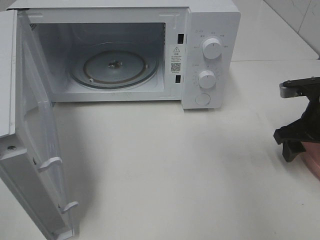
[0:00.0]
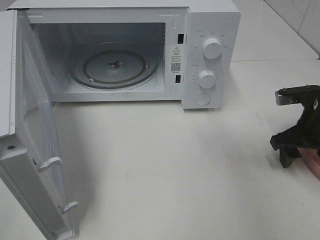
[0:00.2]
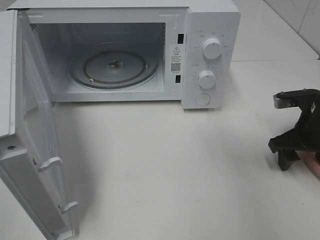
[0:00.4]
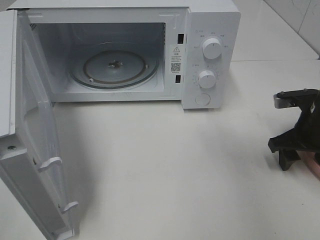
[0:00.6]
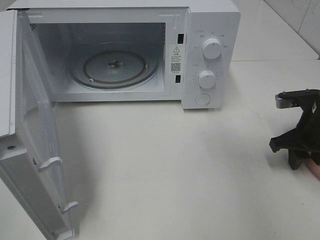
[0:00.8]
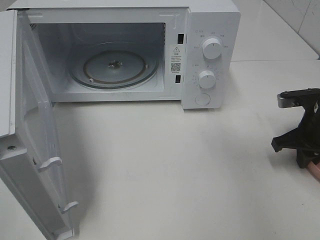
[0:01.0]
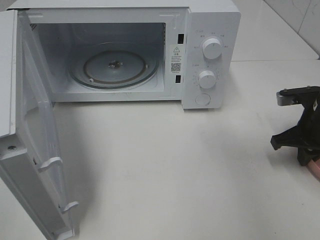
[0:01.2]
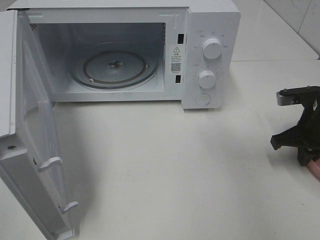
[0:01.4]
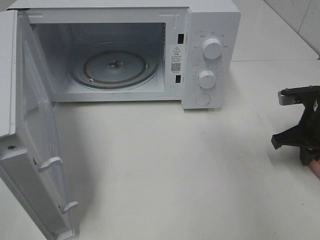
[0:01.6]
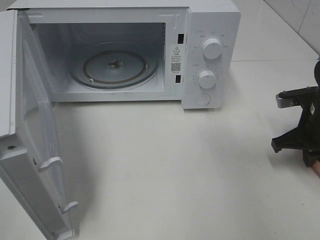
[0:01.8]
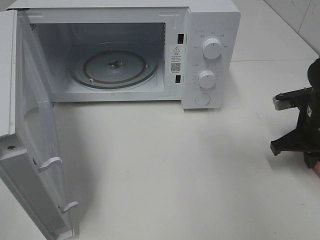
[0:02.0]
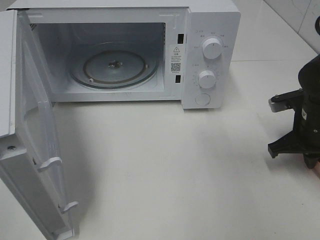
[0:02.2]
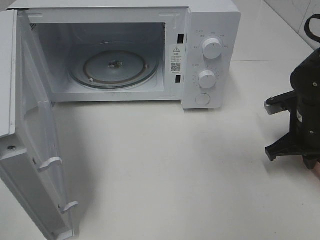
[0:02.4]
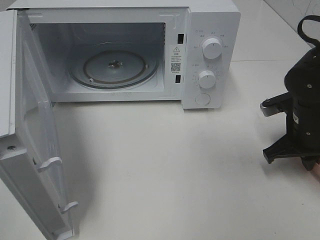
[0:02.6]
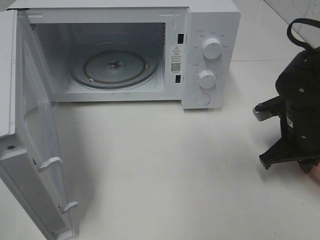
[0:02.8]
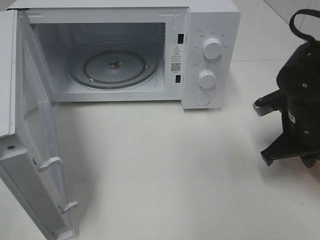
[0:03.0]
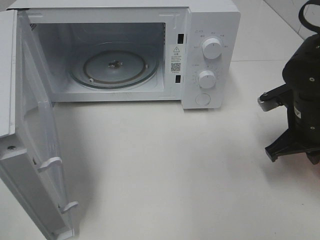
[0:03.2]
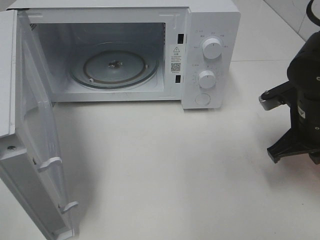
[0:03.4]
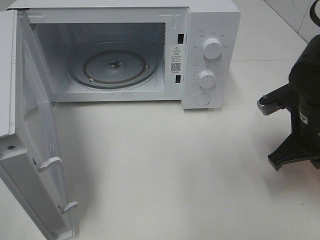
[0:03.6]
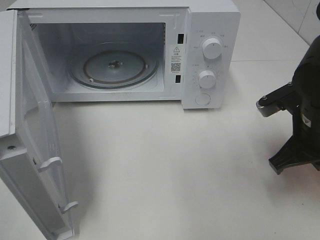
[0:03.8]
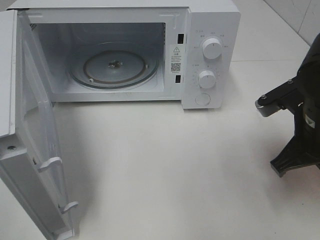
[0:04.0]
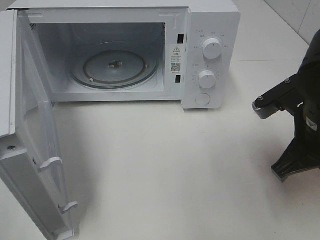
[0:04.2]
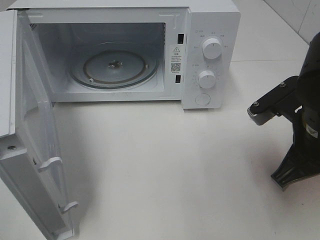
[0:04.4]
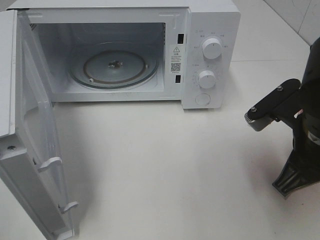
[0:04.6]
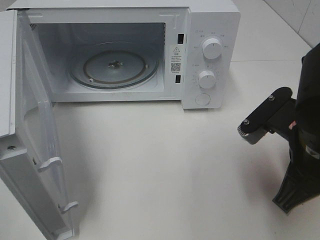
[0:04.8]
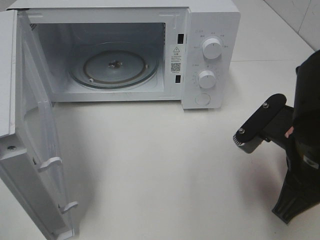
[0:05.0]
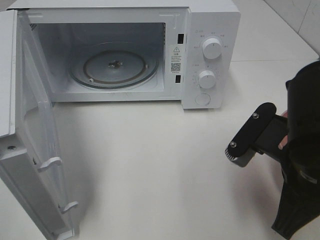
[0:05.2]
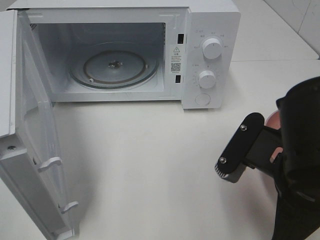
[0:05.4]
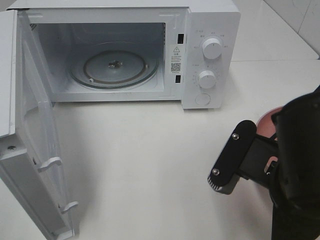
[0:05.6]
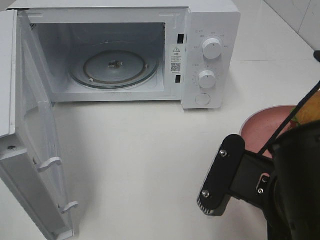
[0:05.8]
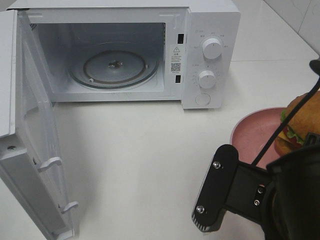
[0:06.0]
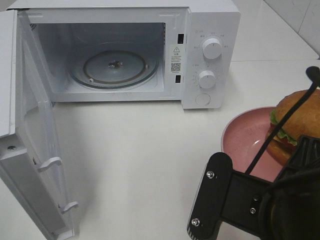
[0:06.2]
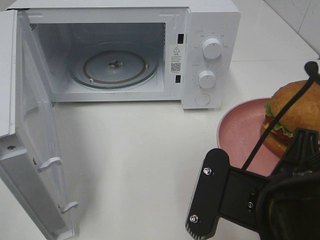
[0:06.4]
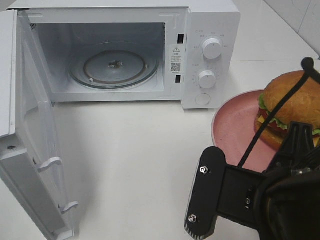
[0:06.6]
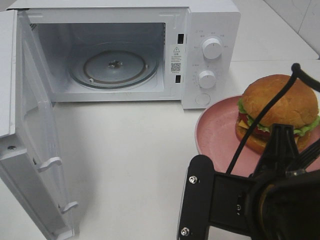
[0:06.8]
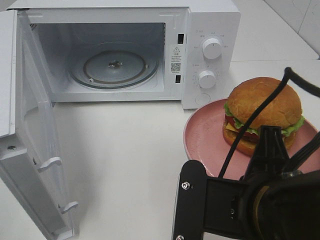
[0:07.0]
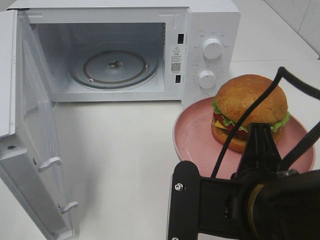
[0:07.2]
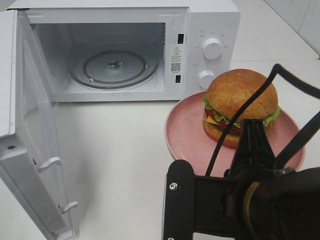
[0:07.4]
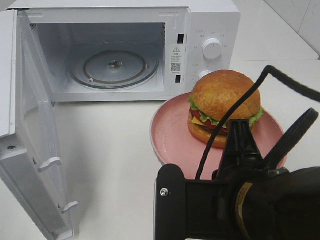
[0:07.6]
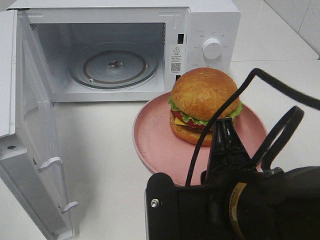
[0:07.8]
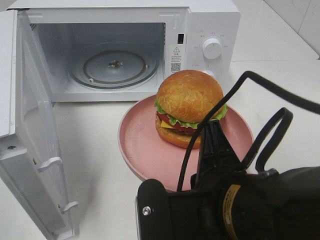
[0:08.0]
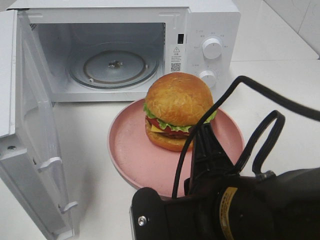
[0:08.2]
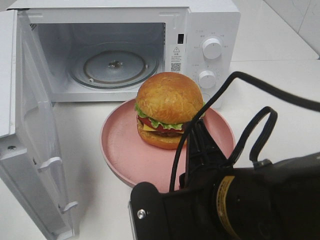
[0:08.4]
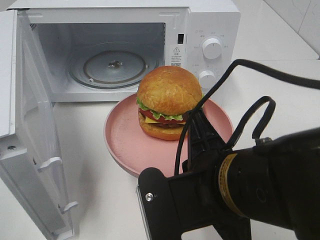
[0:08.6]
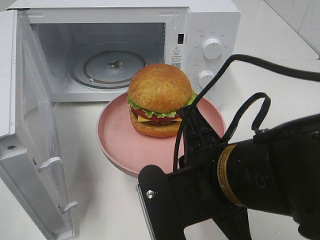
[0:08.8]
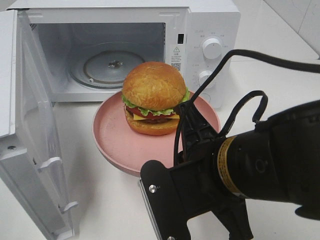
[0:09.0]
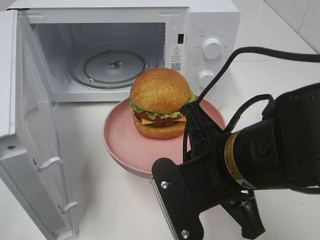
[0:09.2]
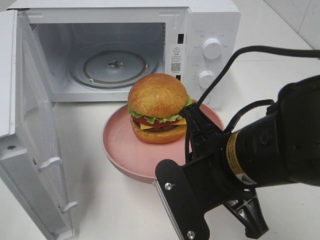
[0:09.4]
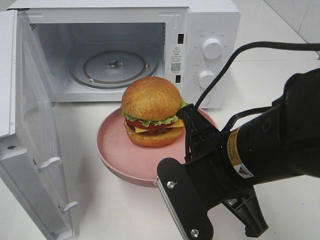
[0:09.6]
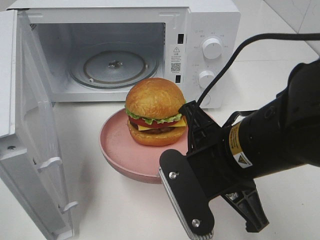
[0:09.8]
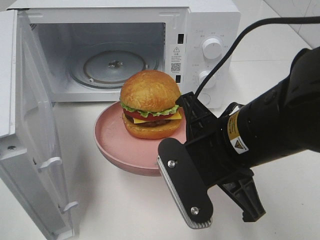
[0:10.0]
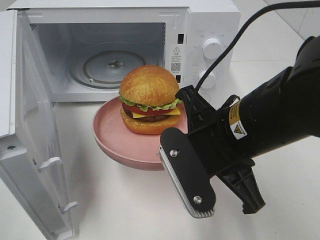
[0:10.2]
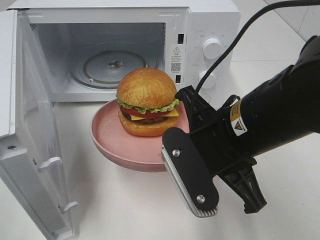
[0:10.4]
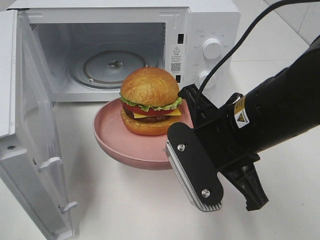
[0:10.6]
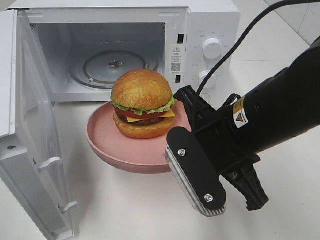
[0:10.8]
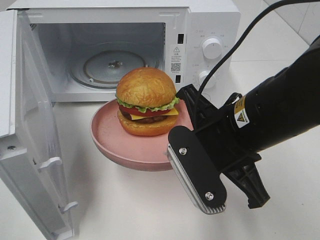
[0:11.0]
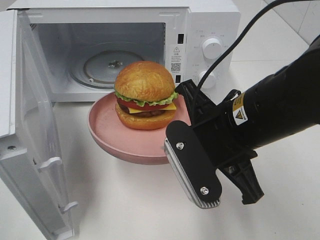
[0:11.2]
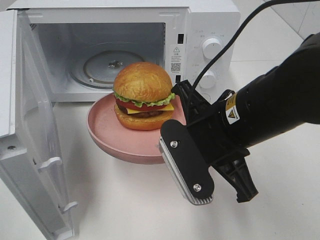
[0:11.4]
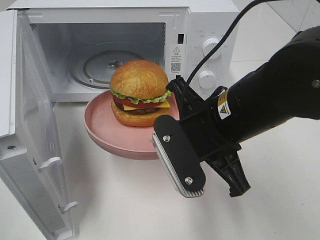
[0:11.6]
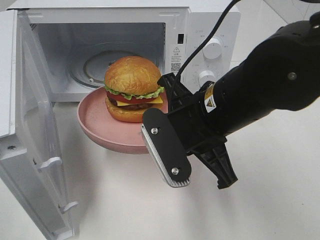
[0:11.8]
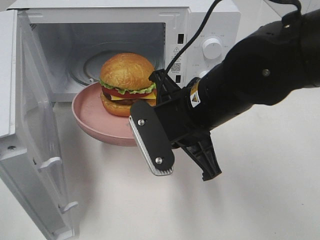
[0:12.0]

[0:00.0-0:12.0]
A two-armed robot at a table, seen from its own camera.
Task of the whole recording: Heat the burger.
0:00.0 to 0:01.6: The right gripper closes.
0:01.6 to 0:03.0: The right gripper shifts about 5 cm to the left.
0:03.0 to 0:04.4: The right gripper moves backward and upward, roughly 10 cm.
0:04.4 to 0:06.0: The right gripper shifts roughly 15 cm backward and to the left.
0:09.0 to 0:10.4: The right gripper shifts by some 5 cm.
0:10.4 to 0:12.0: The right gripper shifts by roughly 5 cm.

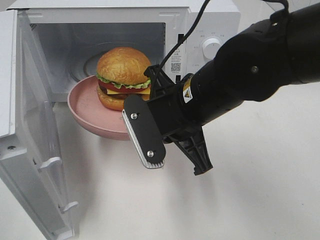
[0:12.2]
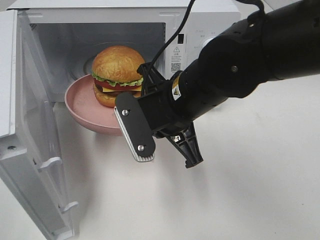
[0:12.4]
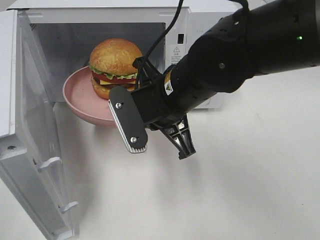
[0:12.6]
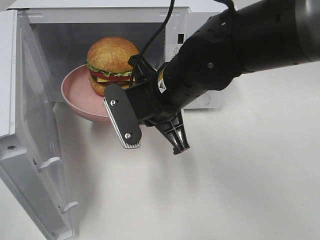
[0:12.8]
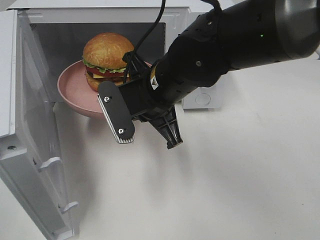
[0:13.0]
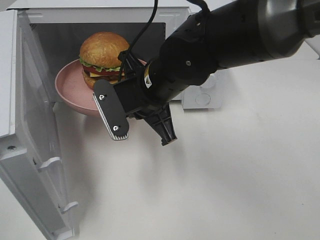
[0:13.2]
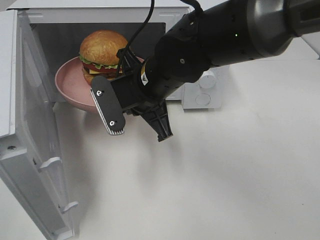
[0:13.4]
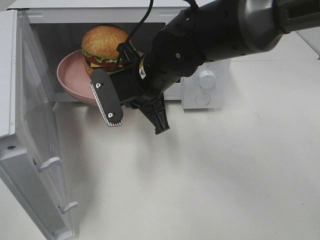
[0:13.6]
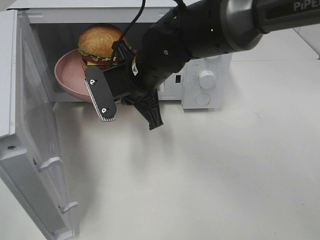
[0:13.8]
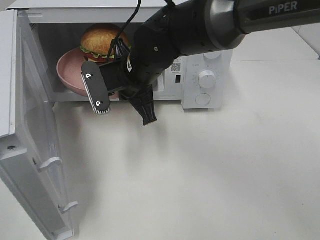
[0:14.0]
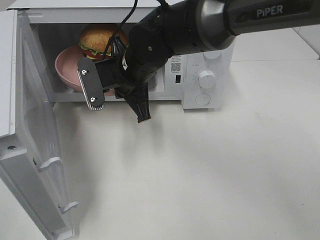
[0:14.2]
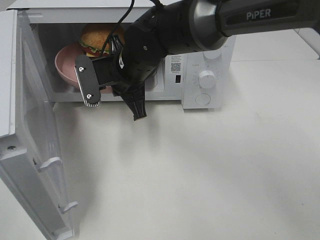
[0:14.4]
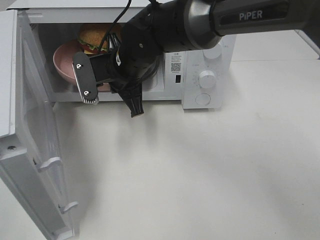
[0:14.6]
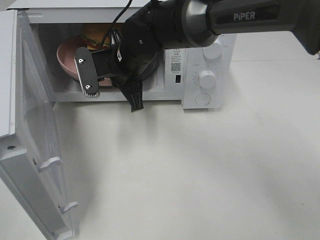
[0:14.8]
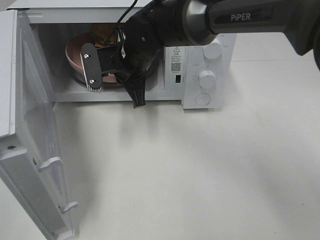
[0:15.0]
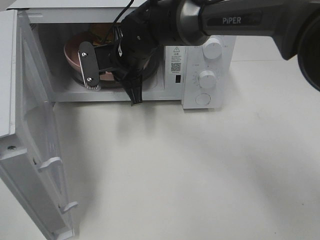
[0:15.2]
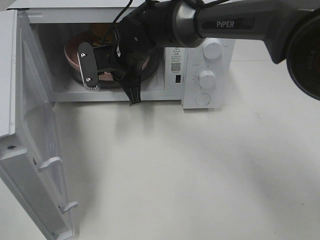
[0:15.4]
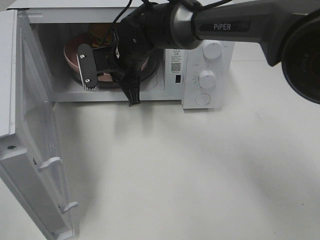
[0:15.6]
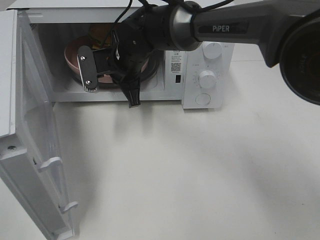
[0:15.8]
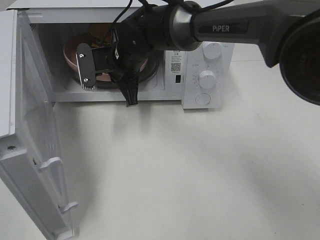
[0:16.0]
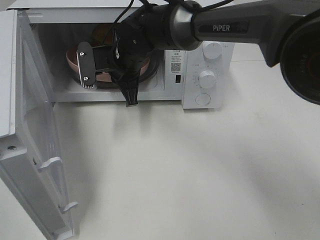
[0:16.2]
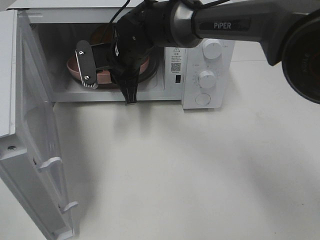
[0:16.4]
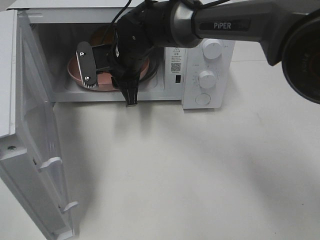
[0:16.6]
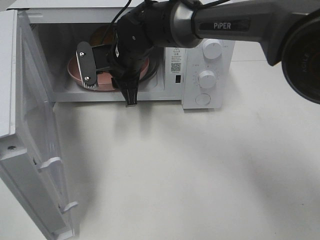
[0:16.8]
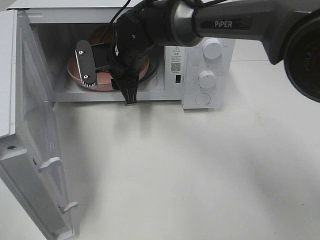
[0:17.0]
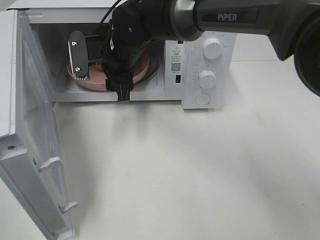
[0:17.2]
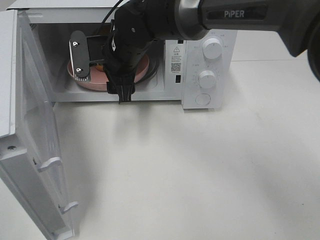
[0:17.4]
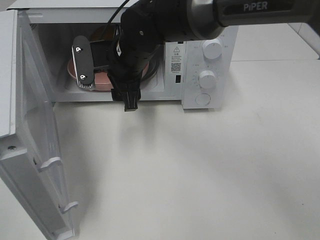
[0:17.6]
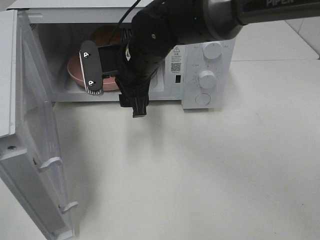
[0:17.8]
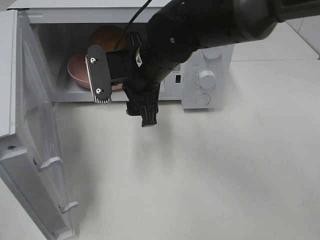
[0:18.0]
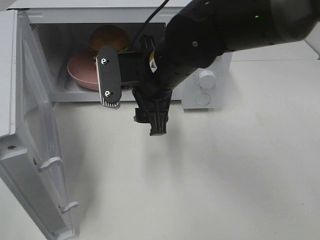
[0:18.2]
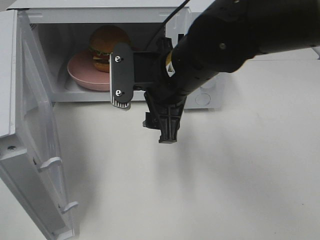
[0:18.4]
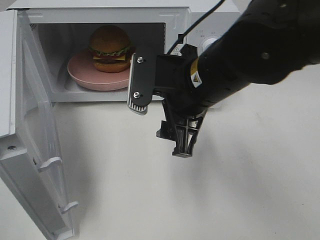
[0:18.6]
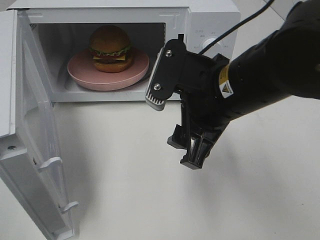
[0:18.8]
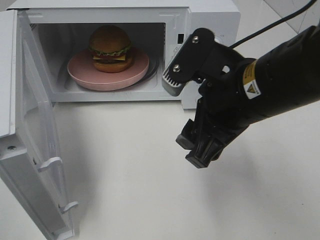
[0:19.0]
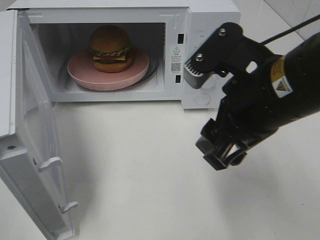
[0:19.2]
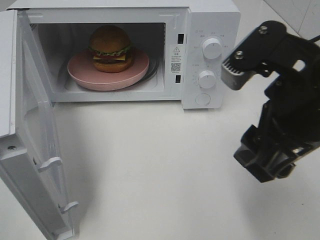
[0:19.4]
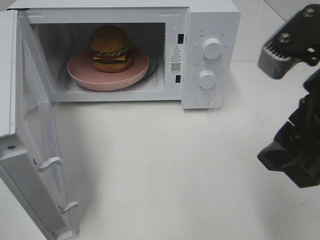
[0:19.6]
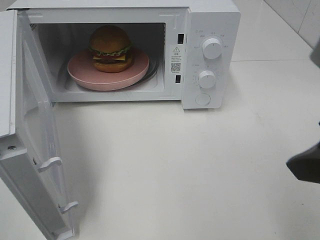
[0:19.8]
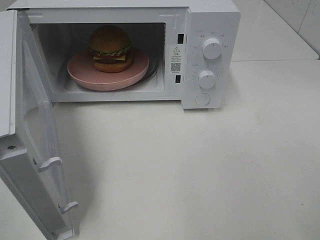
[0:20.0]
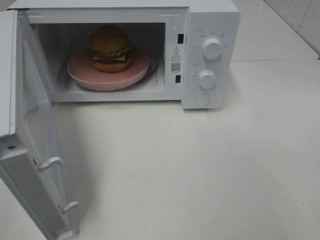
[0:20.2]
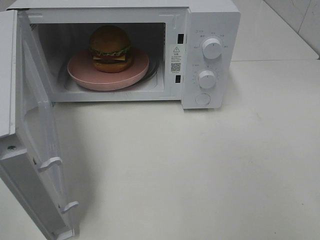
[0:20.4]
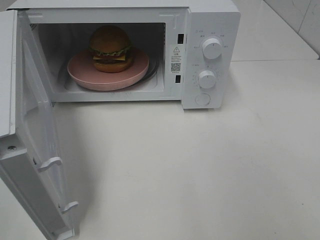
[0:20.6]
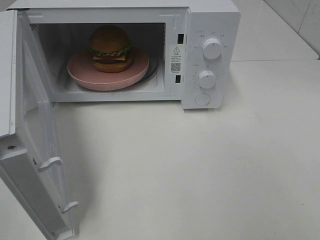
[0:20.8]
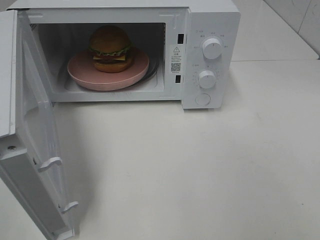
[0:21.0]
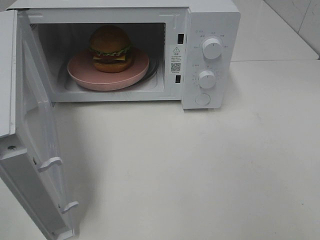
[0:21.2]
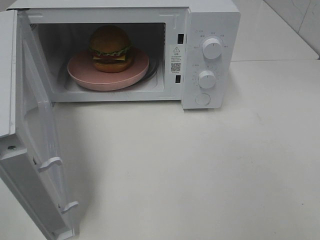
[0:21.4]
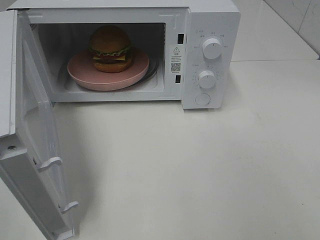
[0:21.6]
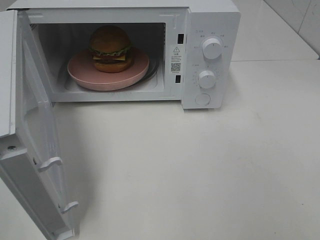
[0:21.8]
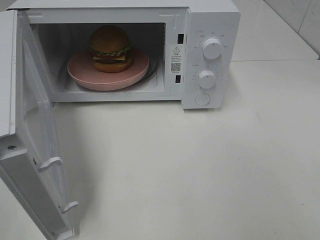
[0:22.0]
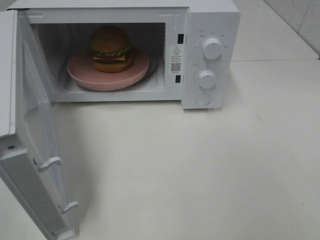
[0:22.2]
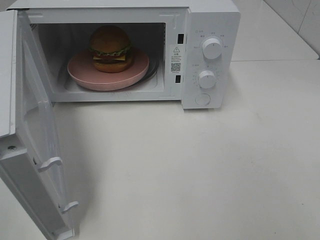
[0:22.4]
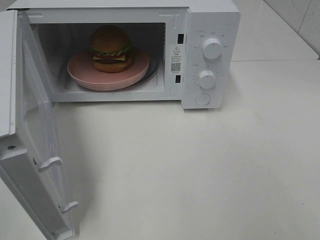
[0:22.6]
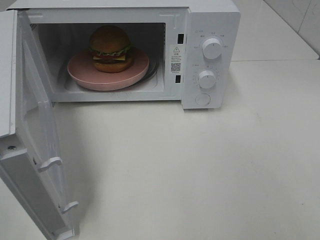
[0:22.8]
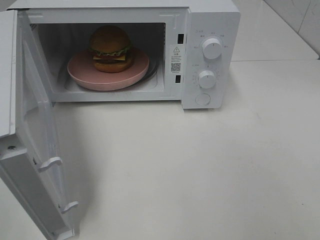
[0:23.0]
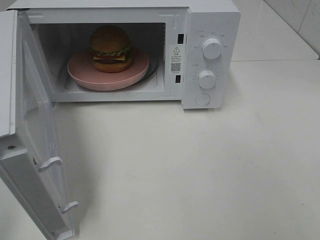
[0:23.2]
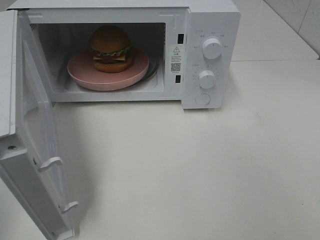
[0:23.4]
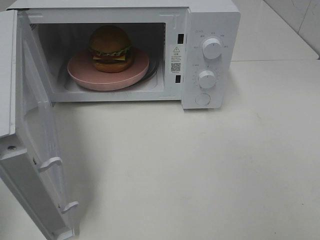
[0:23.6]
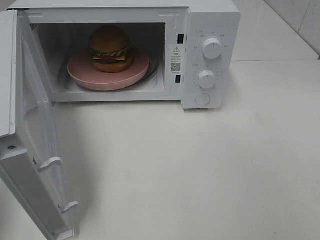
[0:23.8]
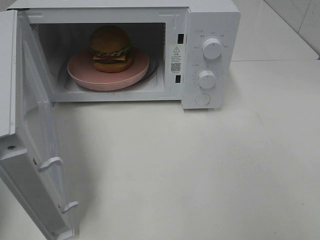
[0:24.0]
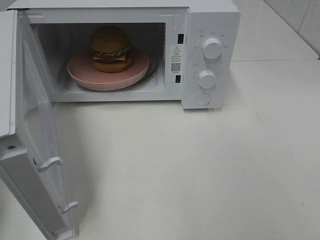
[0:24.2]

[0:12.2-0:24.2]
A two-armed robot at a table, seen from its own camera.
Task of the whole recording: Heat the burger.
Step, 0:12.2 to 0:16.6: Right hand: place the plate in the microwave.
0:12.2 to 0:13.8: The right gripper shifts some 10 cm forward and to the left.
0:13.8 to 0:15.2: The right gripper travels forward by approximately 5 cm.
0:15.2 to 0:16.6: The grippers make only small movements.
0:16.6 to 0:18.2: The right gripper heads backward and to the right, covering some 15 cm, and opens.
0:18.2 to 0:19.8: The right gripper goes approximately 30 cm to the right, backward and upward.
0:19.8 to 0:21.2: The right gripper travels backward and to the right by some 15 cm.
0:21.2 to 0:22.6: The two grippers keep their place.
